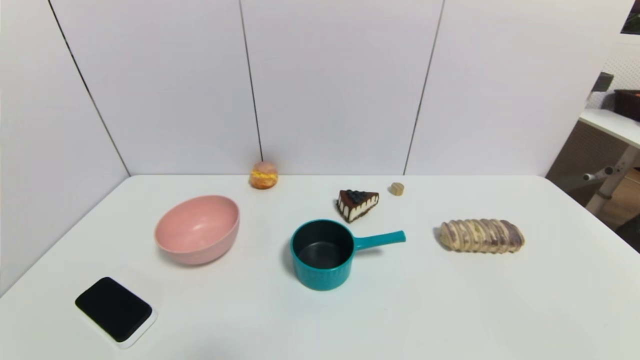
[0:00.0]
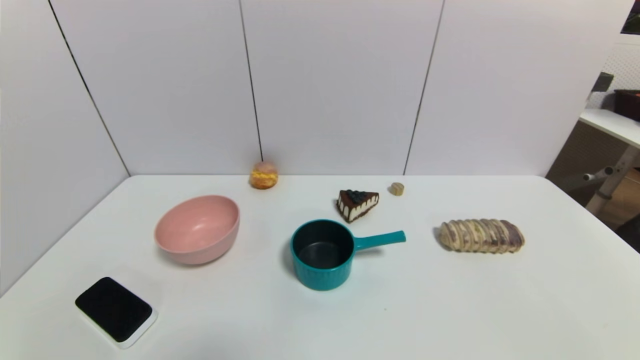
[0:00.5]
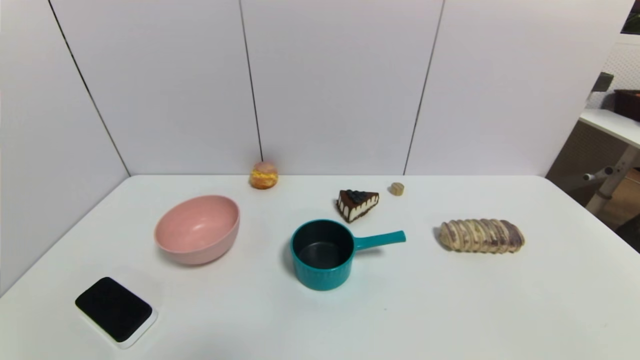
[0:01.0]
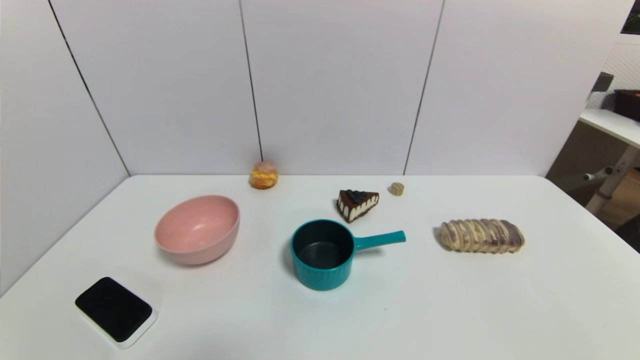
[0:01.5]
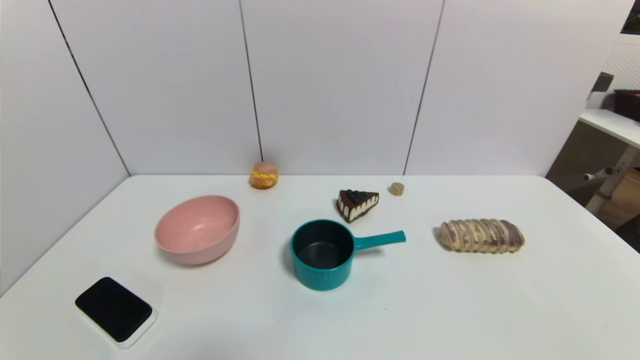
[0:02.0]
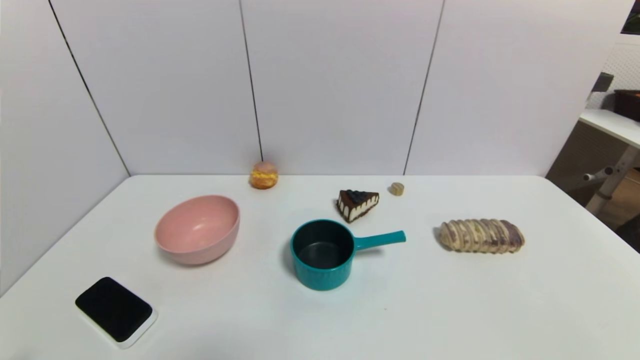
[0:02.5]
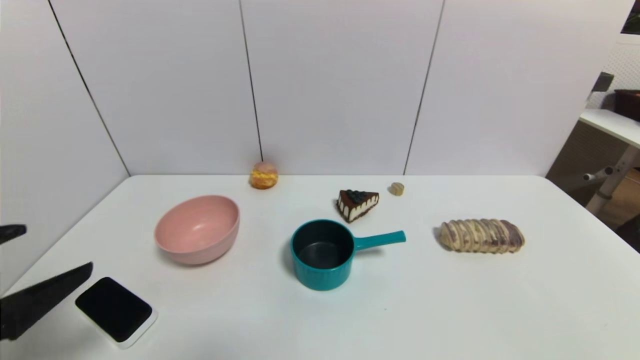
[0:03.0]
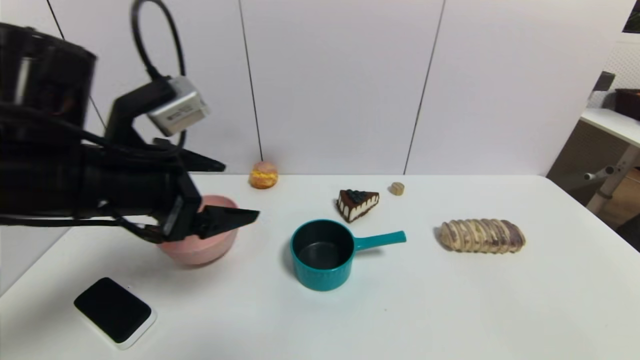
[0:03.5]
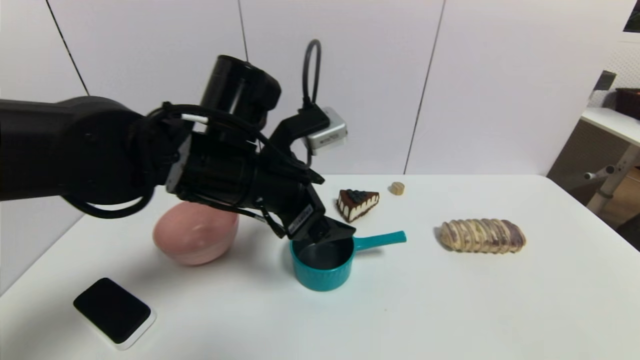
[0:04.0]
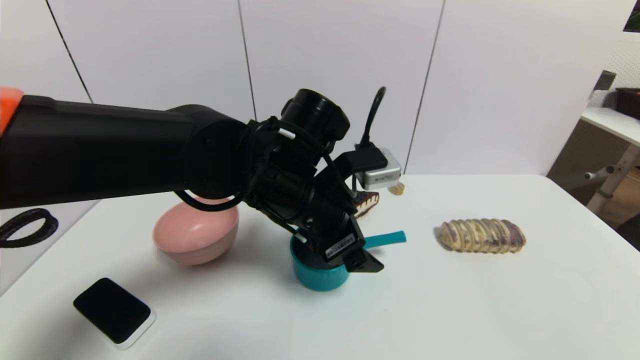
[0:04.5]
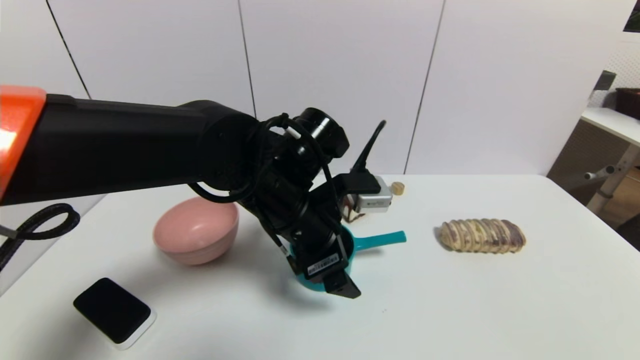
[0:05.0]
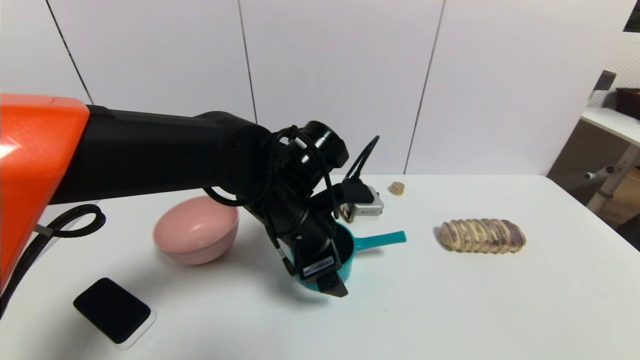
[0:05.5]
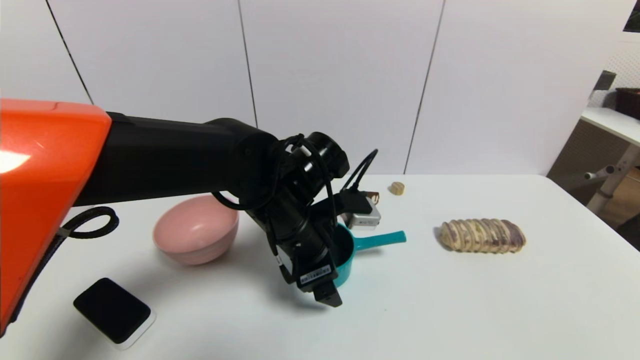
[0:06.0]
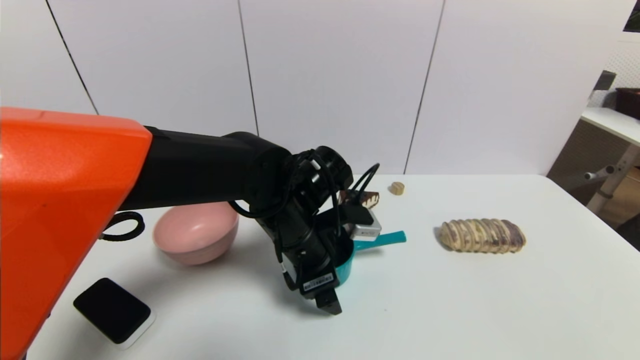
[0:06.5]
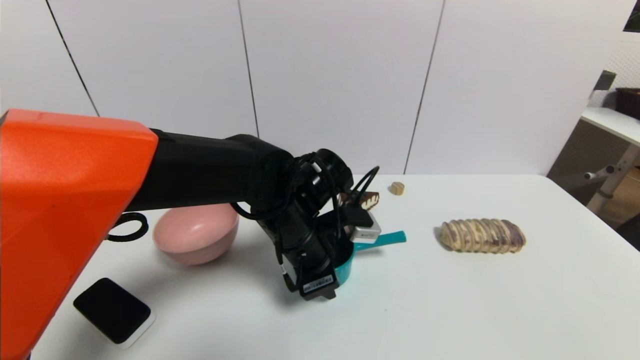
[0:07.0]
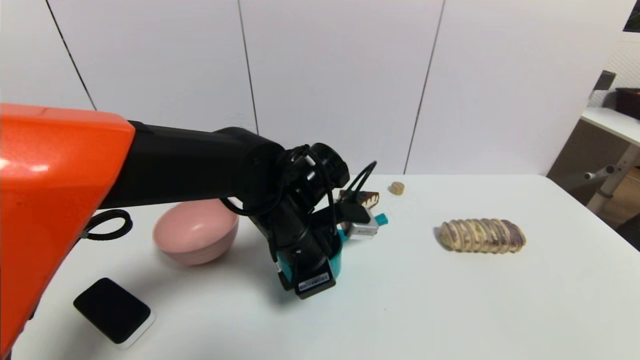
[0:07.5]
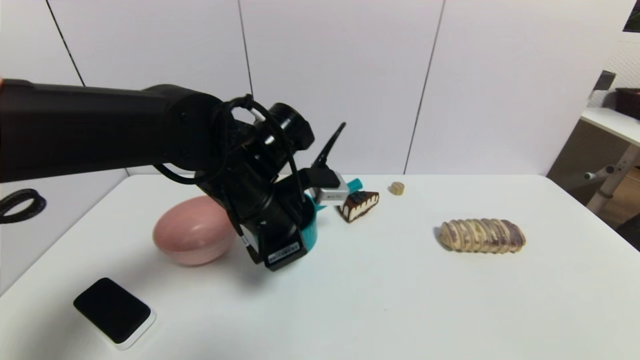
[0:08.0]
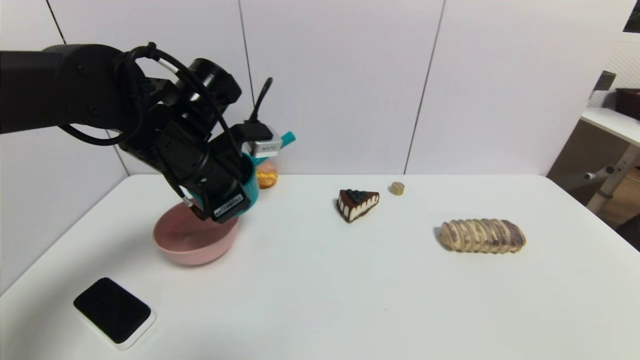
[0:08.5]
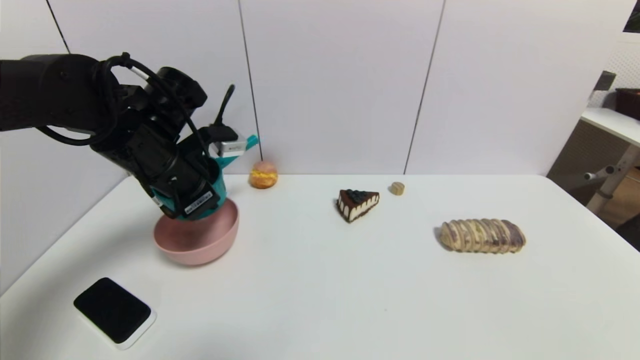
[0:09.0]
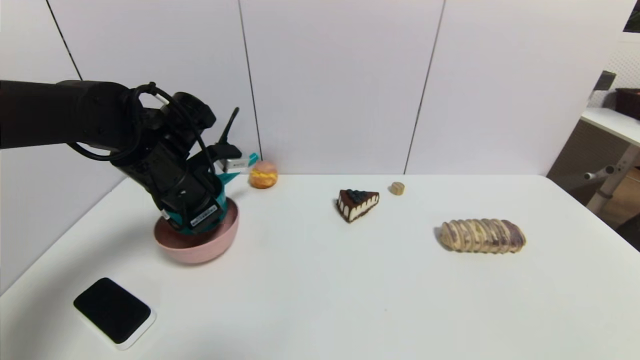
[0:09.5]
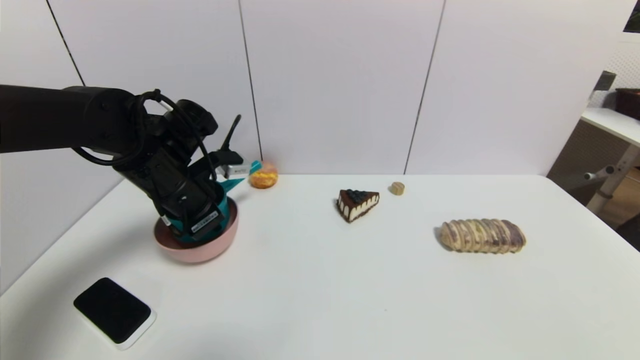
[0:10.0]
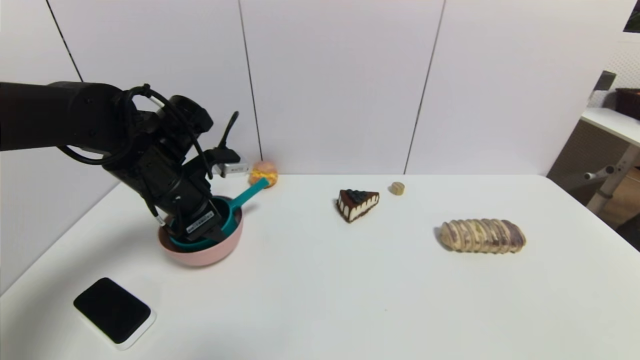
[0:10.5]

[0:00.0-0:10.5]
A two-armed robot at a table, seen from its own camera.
Task of the whole recording: use a gripper to pick the target object and place on the pink bowl.
Step, 0:00.0 to 0:07.0: Grasp the blue pot with the left gripper.
Step, 0:07.5 to 0:10.0: Place the blue pot on the pink bowl with the left gripper.
0:00.0 to 0:02.0: Both grippers stay put.
0:02.0 to 0:04.0: The left gripper moves forward, to the right and upward, about 40 cm.
0:04.0 to 0:06.5: The left gripper is displaced downward by approximately 10 cm.
0:06.5 to 0:08.5: The left gripper moves to the left and upward, about 15 cm, and closes.
0:08.5 to 0:10.5: The left gripper changes place by about 5 cm, and opens.

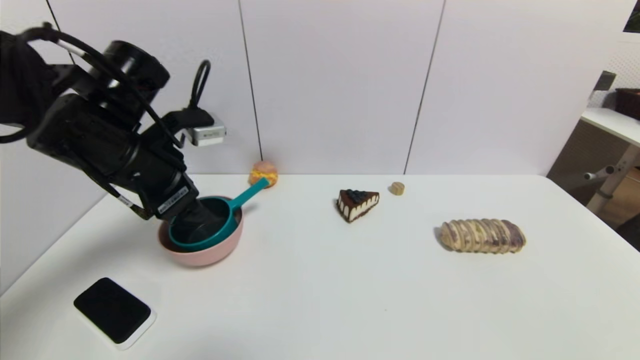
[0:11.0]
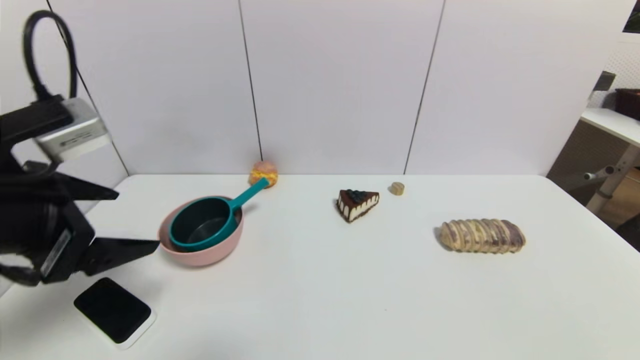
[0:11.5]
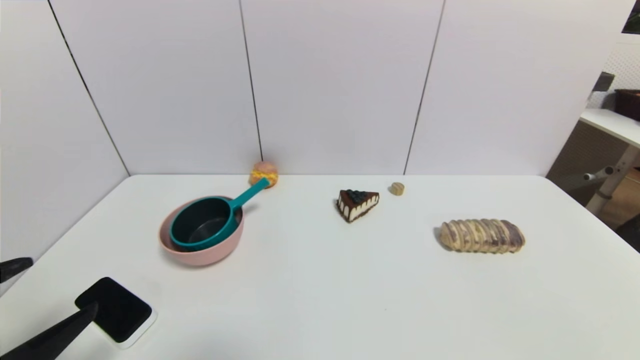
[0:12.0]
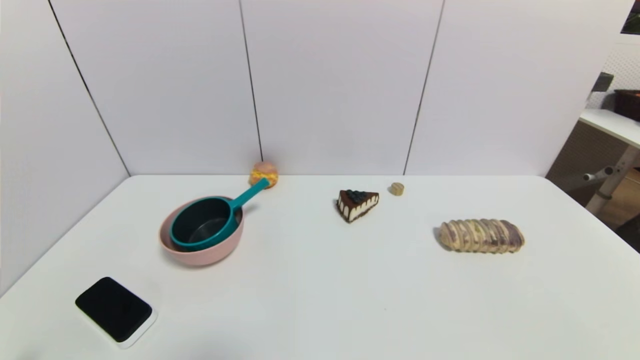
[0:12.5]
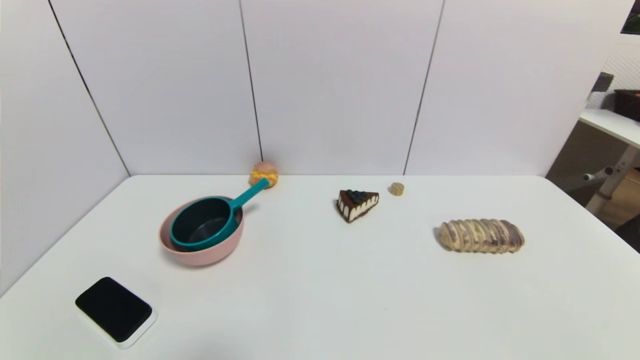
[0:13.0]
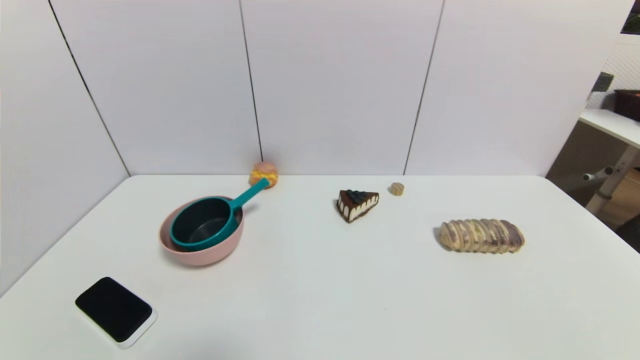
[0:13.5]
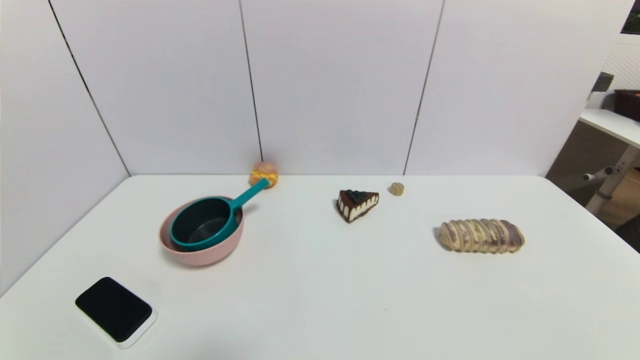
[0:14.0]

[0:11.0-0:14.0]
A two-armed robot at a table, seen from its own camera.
Task of the whole recording: use a gripper to pick the target object and place on the pink bowl.
0:11.0 to 0:12.5: The left gripper moves backward and downward, some 35 cm.
